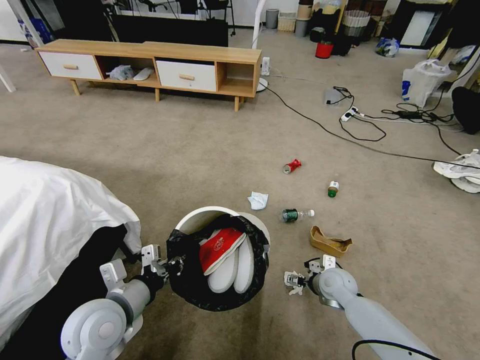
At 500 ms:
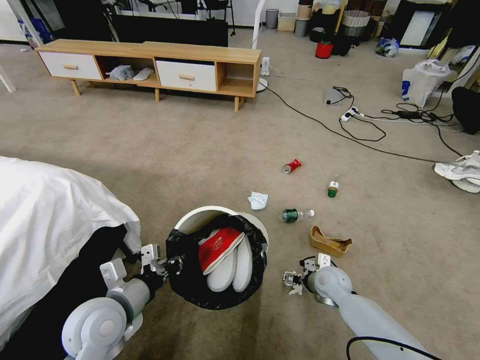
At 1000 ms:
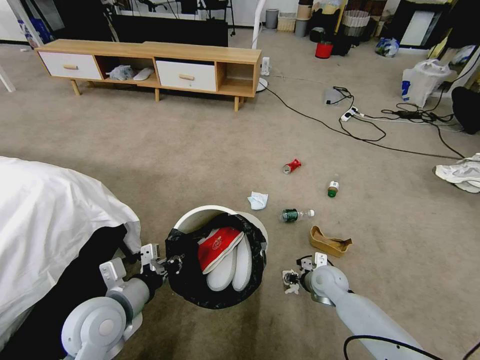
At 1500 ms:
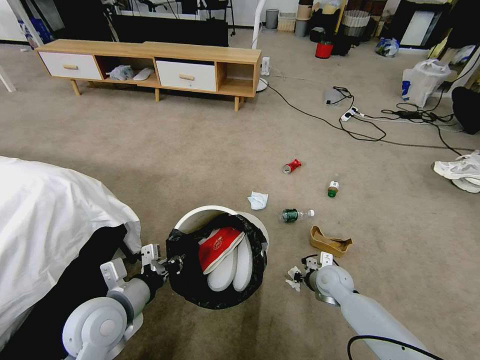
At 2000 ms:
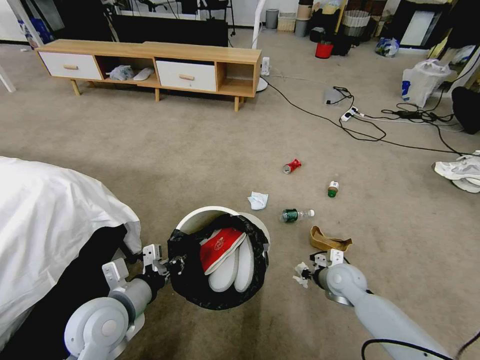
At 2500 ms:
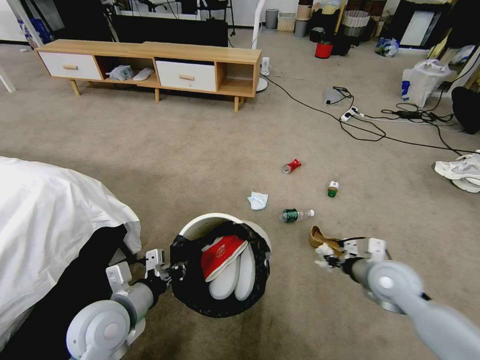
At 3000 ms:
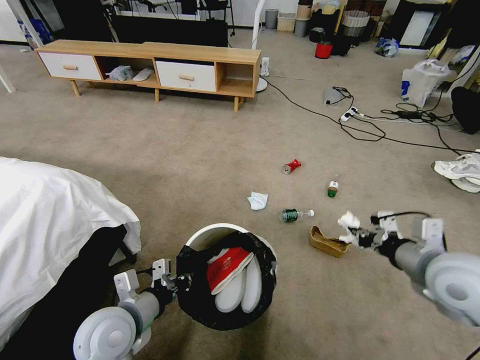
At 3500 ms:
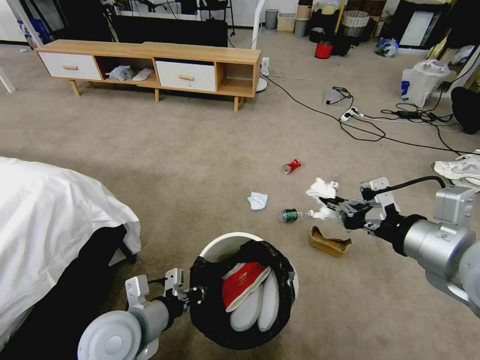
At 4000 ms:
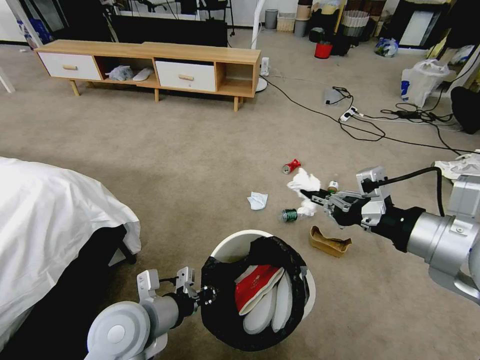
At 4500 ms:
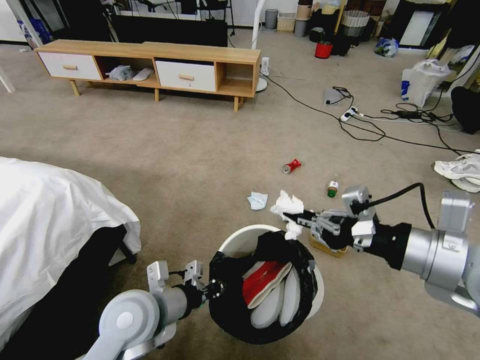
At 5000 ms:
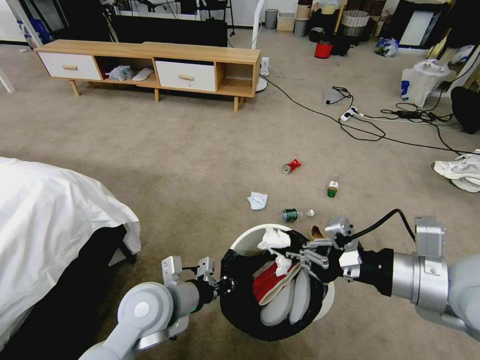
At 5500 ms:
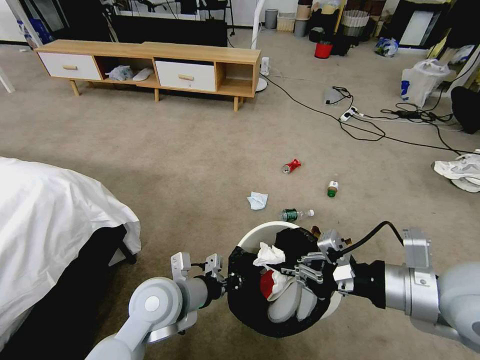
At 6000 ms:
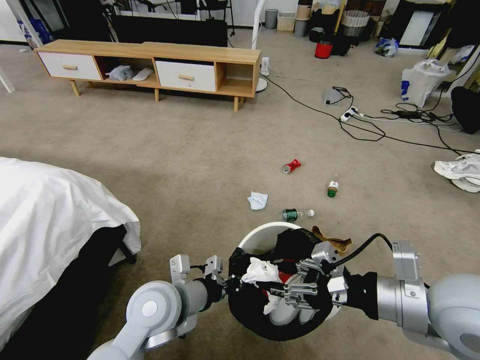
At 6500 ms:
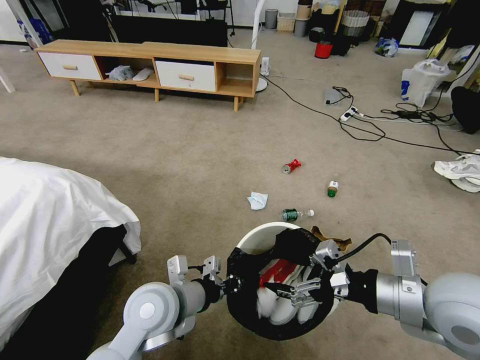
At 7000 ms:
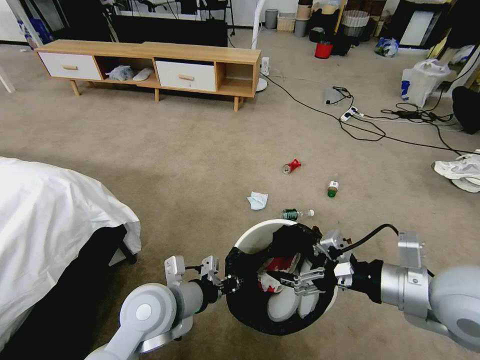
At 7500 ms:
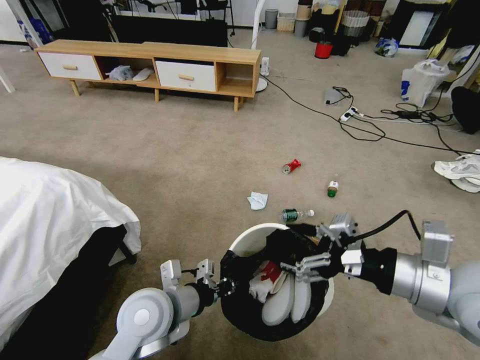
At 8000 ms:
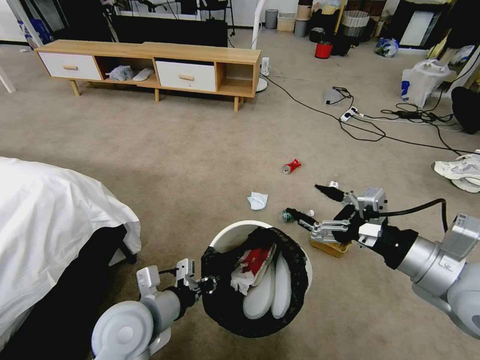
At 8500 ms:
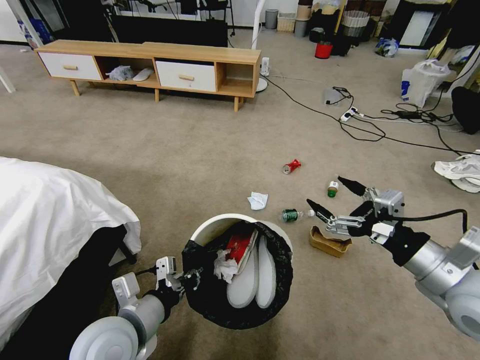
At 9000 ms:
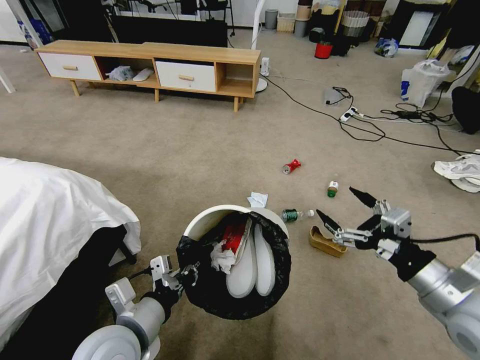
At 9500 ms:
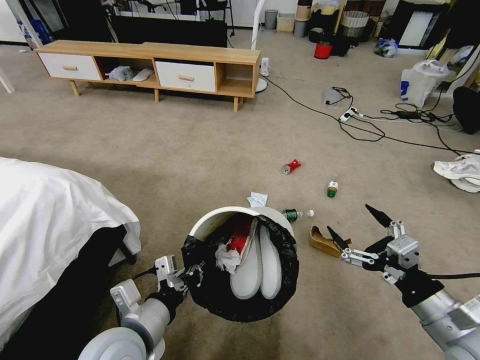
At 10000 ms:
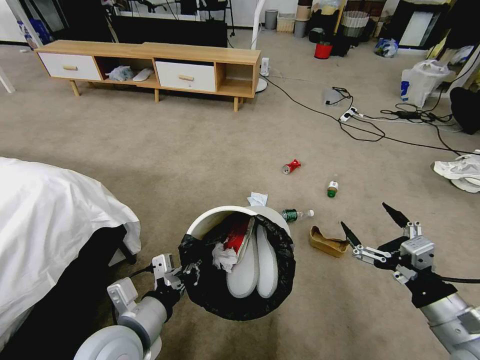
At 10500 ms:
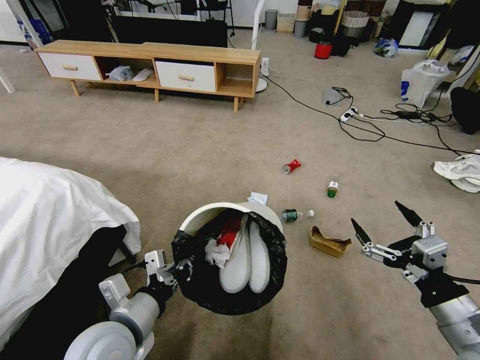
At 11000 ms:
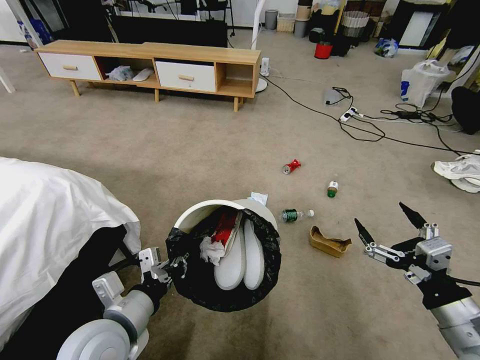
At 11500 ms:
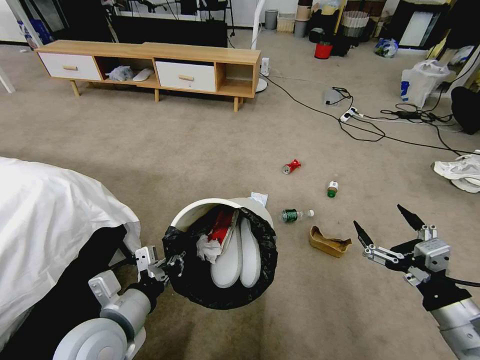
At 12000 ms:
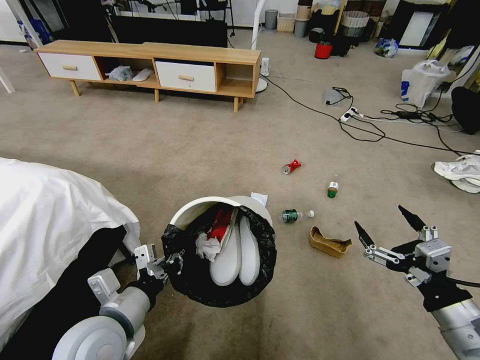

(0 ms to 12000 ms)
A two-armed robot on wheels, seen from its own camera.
Task of the whole recording: Pick up the trash bin and place the garbage on the floor into it.
0 ms - 2000 ms: The right gripper closes its fingers.
2000 ms - 4000 ms: The right gripper travels upward and backward by approximately 40 cm, while the left gripper changes place by some 5 cm.
4000 ms - 6000 ms: The left gripper is displaced to the right by roughly 5 cm. Meanwhile the right gripper moves downward, some 10 cm, and opens.
6000 ms - 8000 ms: The left gripper ends up some 5 cm from where it was. The right gripper opens its fingers.
8000 ms - 10000 ms: The right gripper heads downward and backward, covering some 10 cm.
10000 ms - 12000 ms: The grippers make only small movements.

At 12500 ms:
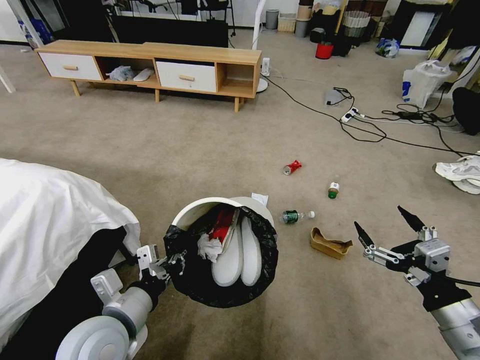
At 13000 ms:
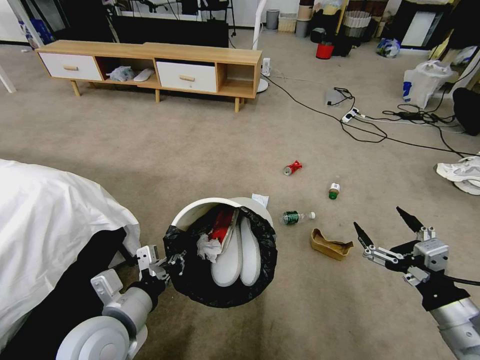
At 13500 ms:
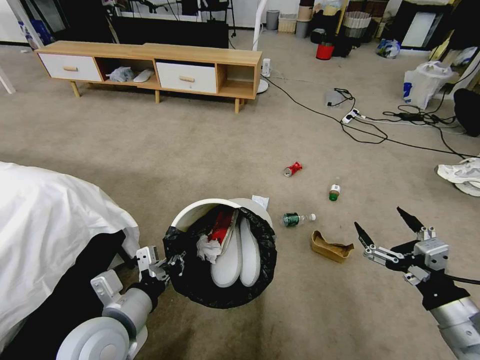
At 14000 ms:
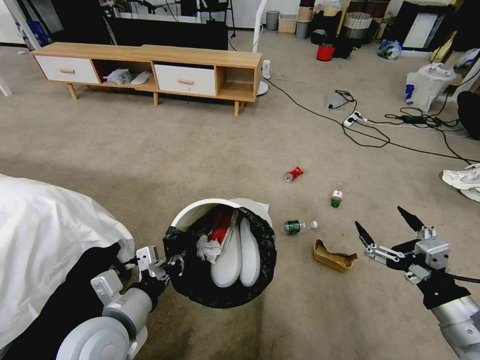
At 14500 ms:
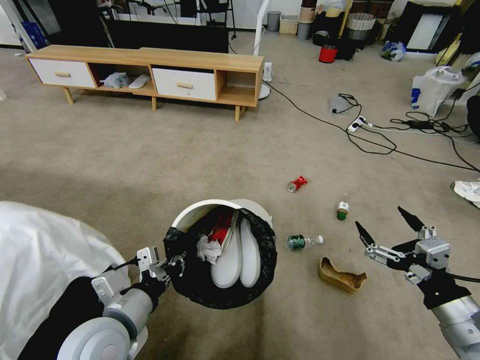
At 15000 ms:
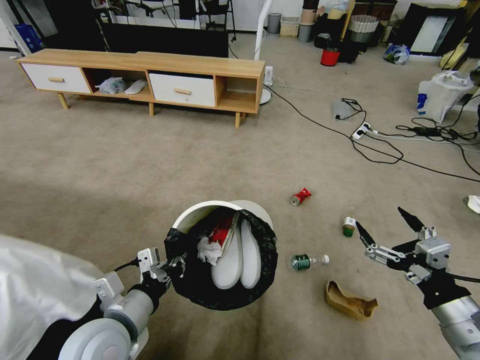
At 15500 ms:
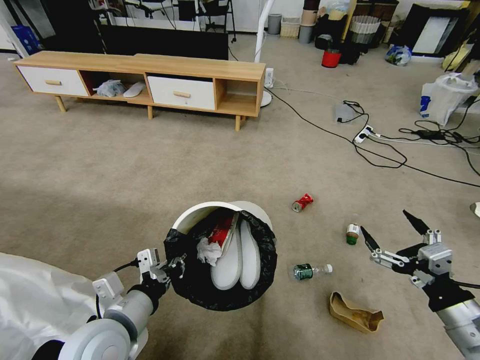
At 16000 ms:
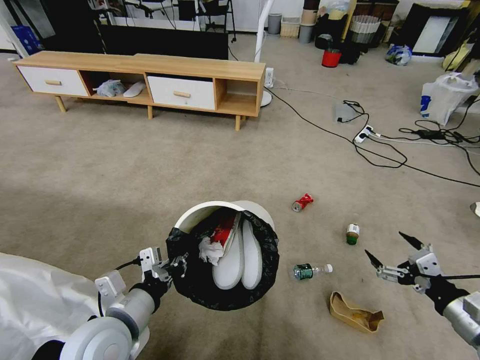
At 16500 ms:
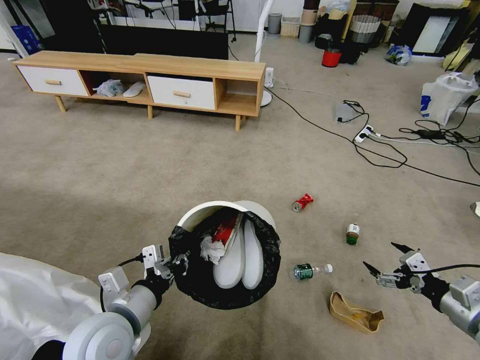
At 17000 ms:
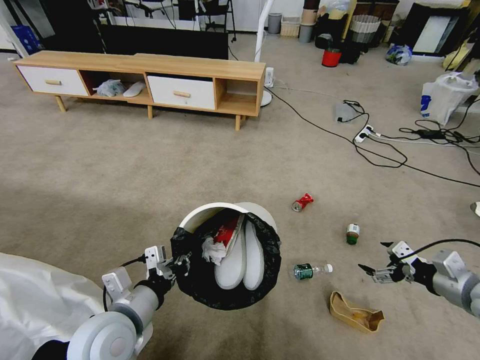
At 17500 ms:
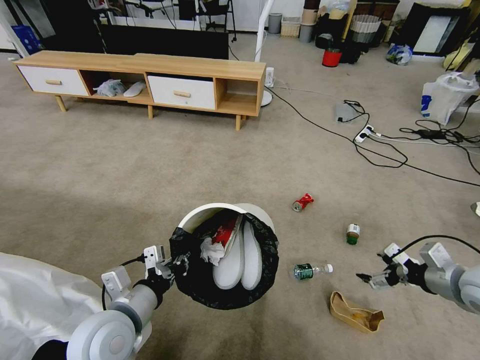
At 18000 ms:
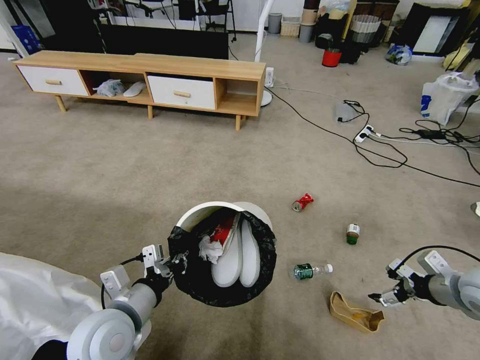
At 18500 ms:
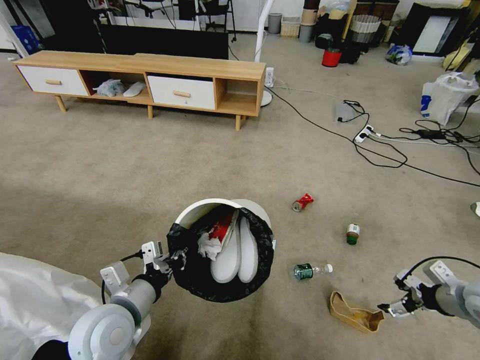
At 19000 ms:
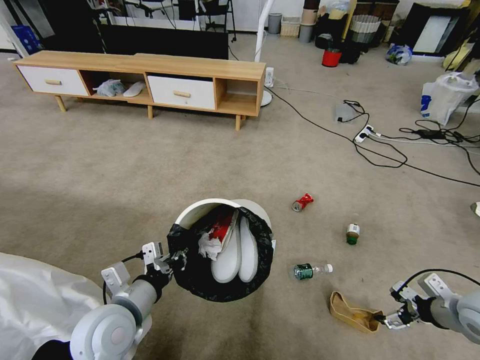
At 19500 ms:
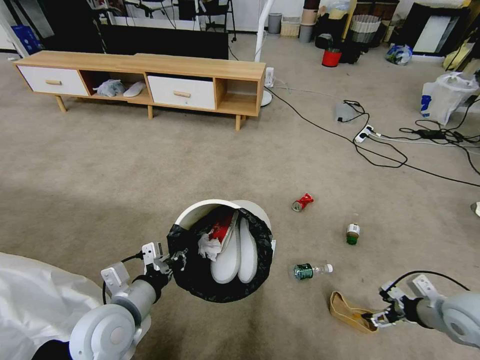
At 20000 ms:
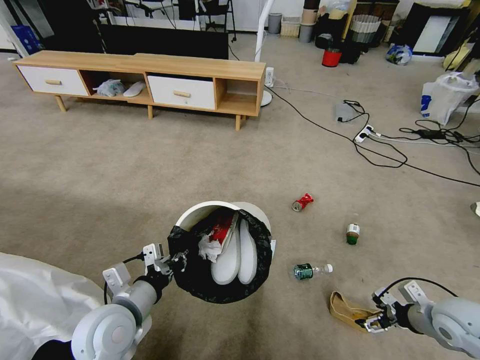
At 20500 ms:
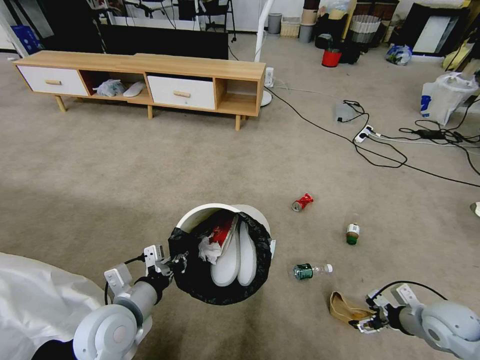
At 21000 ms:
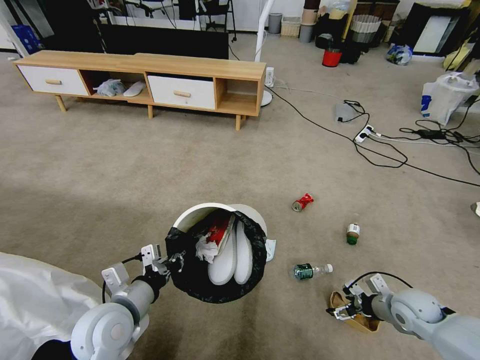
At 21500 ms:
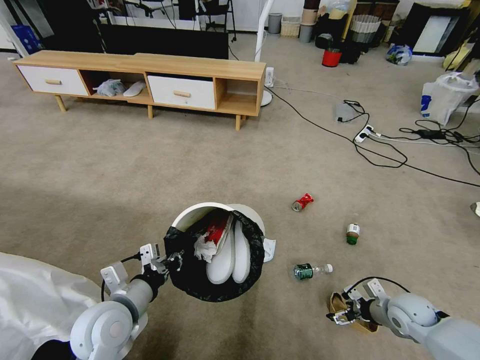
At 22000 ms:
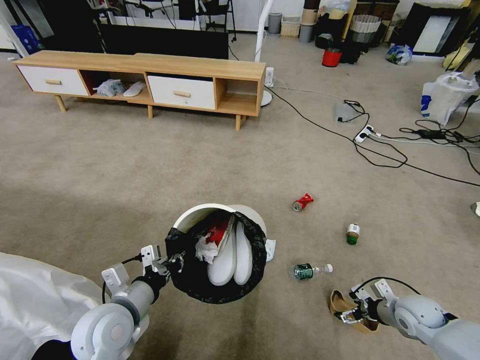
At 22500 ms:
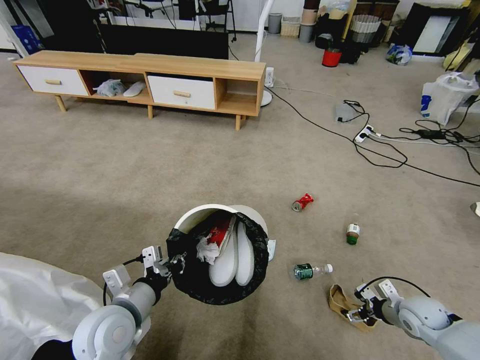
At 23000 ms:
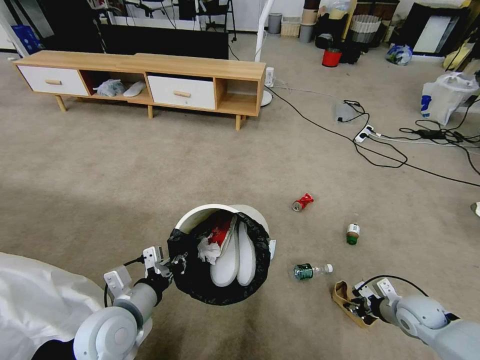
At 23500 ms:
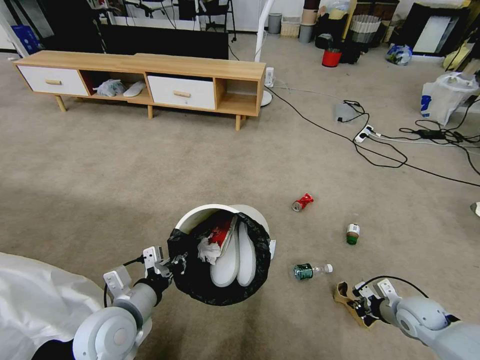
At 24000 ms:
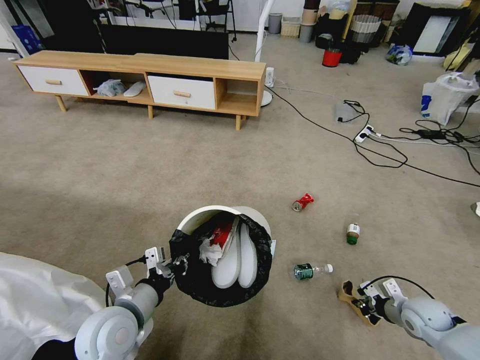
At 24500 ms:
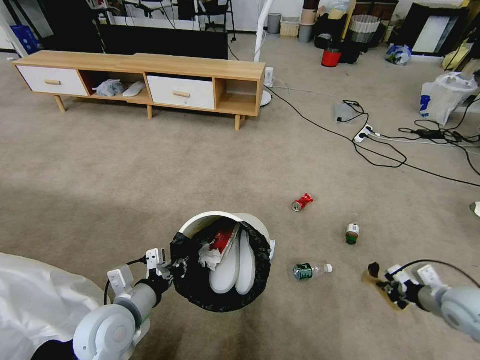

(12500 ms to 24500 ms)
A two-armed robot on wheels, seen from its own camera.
Task of the whole recording: Pick up the trash bin and place the garbage on the floor into it.
14500 ms - 16500 ms: The right gripper heads to the right, covering about 10 cm.
16500 ms - 18500 ms: The right gripper travels forward by about 5 cm.
18500 ms - 20500 ms: The right gripper heads downward, covering roughly 10 cm.
20500 ms - 22500 ms: The right gripper goes about 5 cm downward.
22500 ms - 24500 ms: The right gripper travels upward by approximately 10 cm, and closes up.

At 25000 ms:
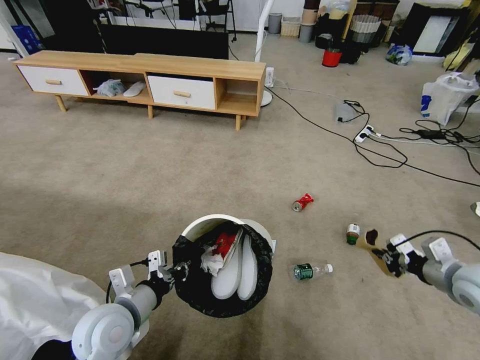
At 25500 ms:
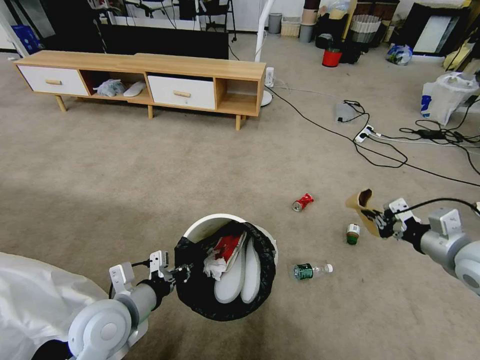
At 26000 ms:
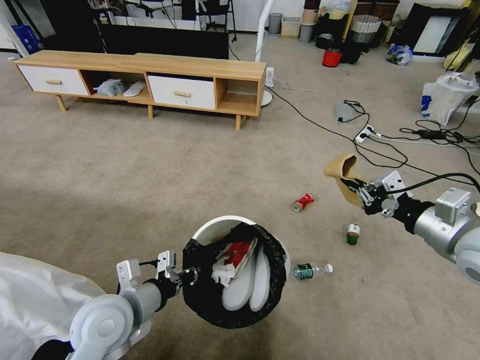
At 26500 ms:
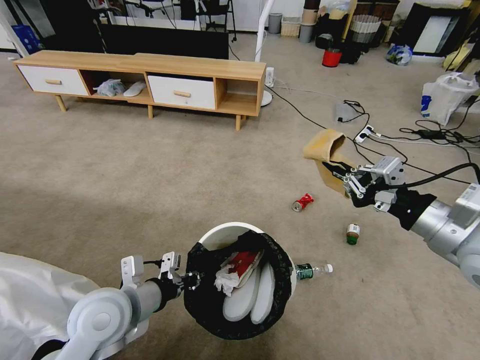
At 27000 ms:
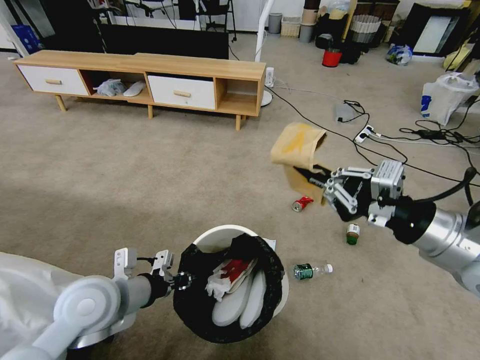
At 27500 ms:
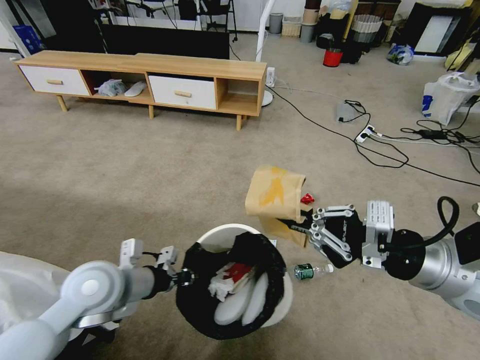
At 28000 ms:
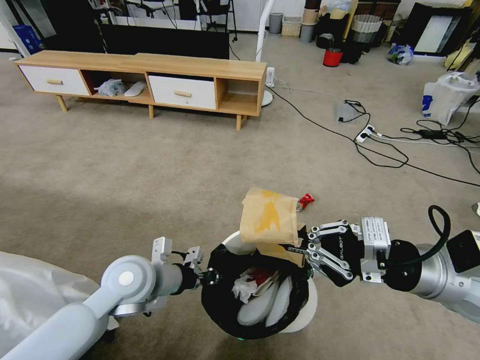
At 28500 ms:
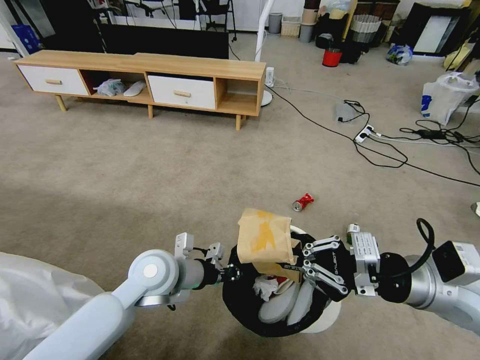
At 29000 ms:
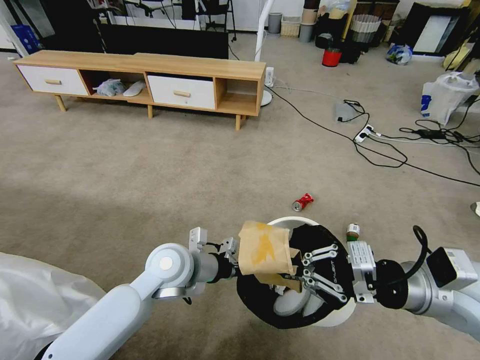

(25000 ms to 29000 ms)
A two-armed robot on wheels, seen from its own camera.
Task of the whole recording: Pick up the trash bin and place the garbage on the floor into it.
25000 ms - 27000 ms: The right gripper travels upward and to the left by about 20 cm. Meanwhile the left gripper travels upward by roughly 5 cm.
27000 ms - 29000 ms: The left gripper heads to the right and forward, covering approximately 15 cm. Meanwhile the right gripper is displaced downward by approximately 10 cm.
